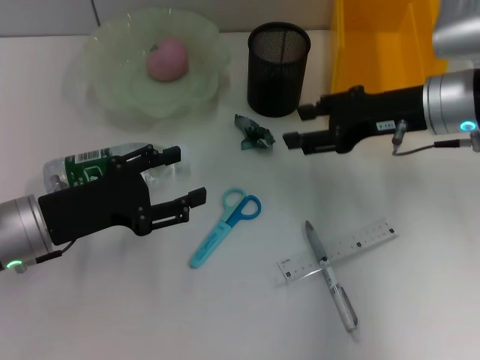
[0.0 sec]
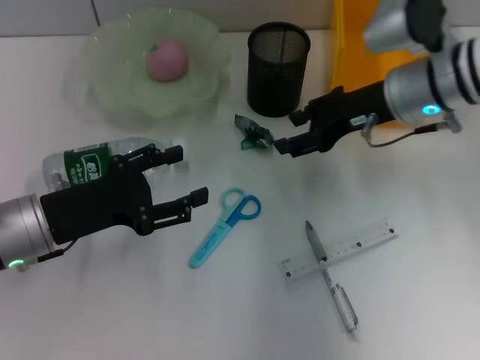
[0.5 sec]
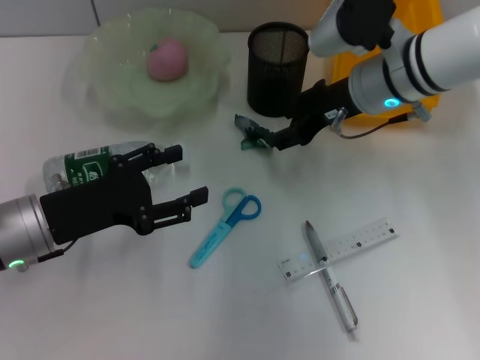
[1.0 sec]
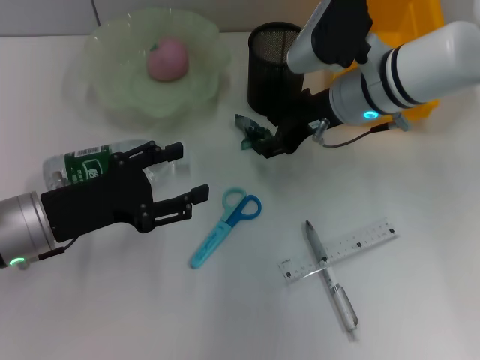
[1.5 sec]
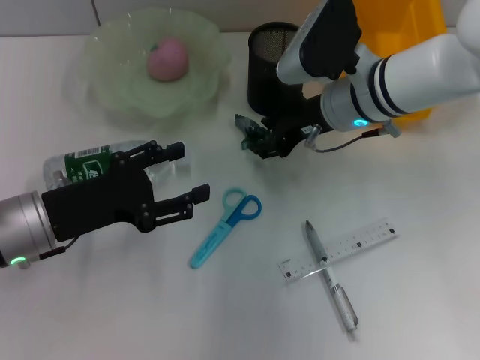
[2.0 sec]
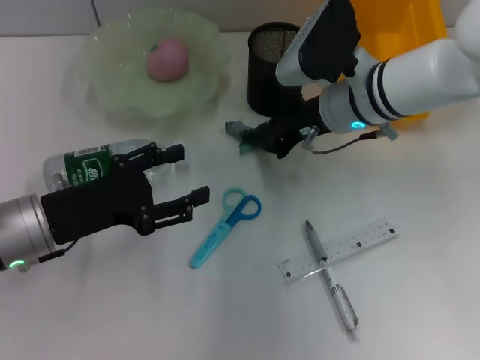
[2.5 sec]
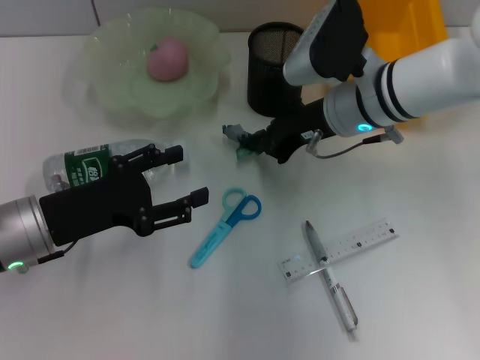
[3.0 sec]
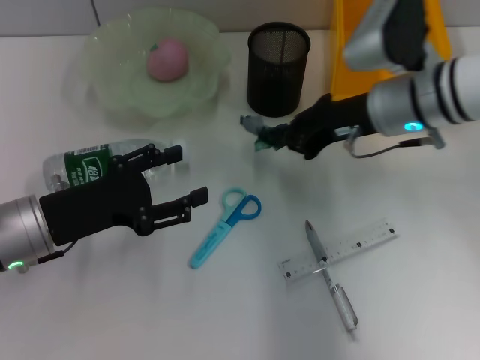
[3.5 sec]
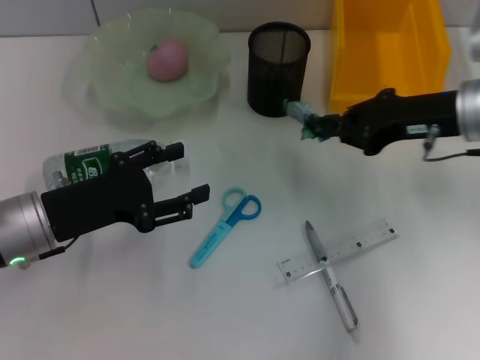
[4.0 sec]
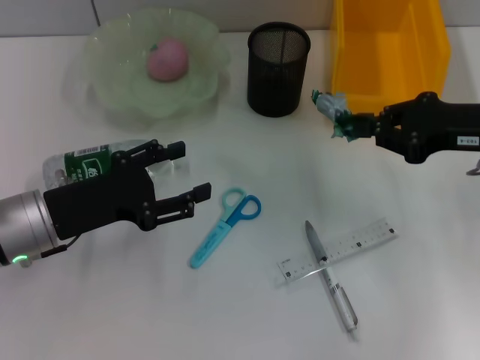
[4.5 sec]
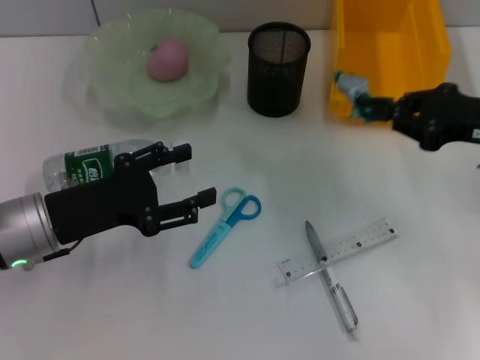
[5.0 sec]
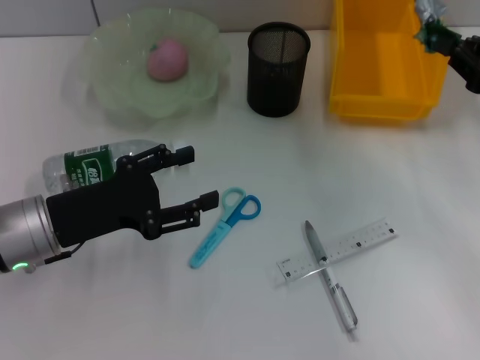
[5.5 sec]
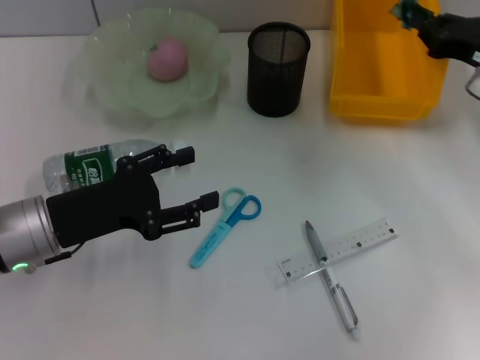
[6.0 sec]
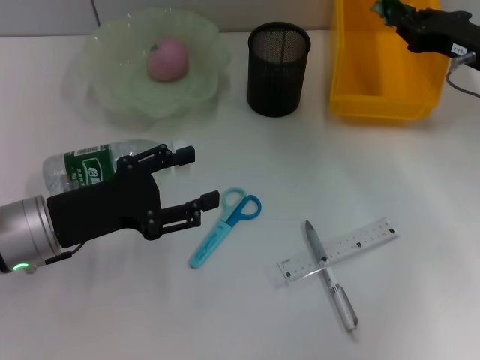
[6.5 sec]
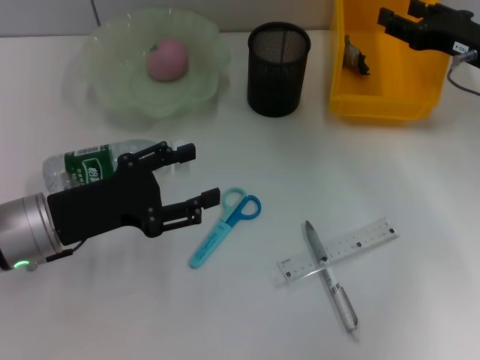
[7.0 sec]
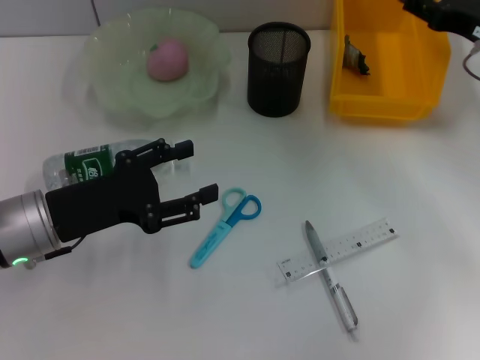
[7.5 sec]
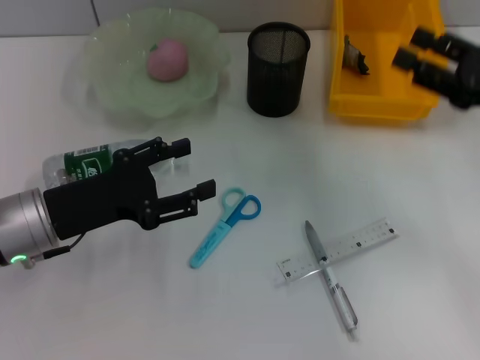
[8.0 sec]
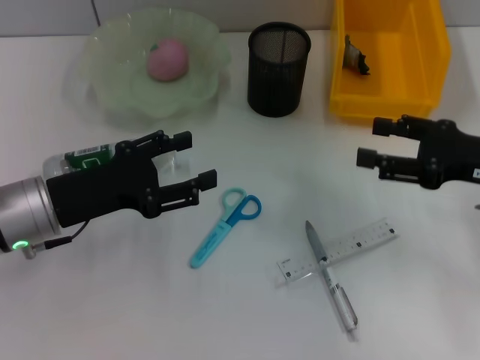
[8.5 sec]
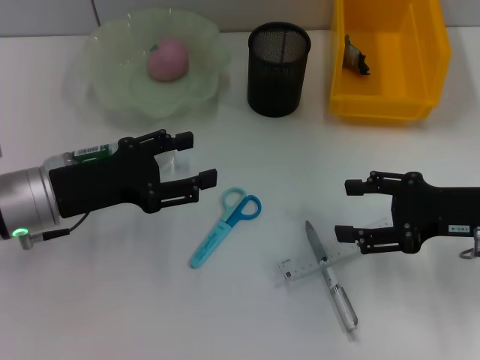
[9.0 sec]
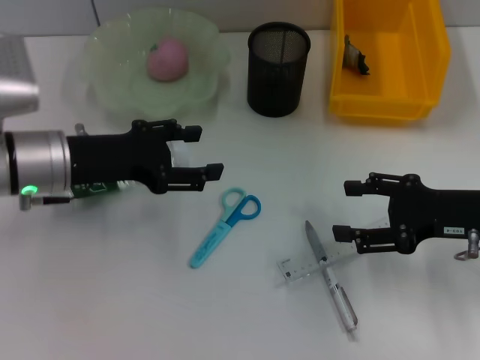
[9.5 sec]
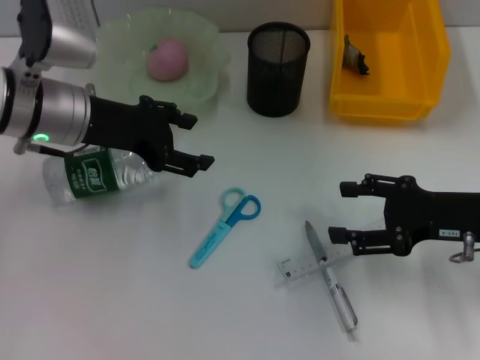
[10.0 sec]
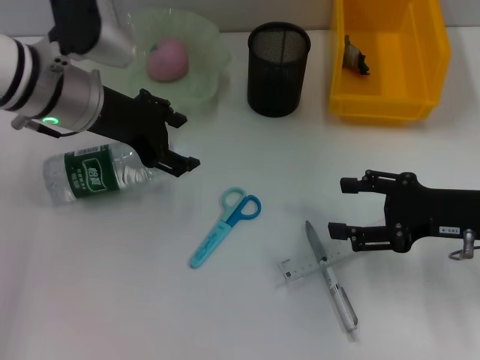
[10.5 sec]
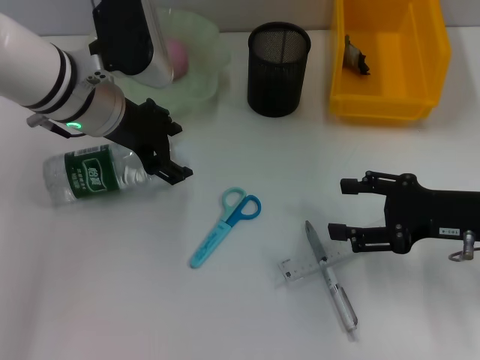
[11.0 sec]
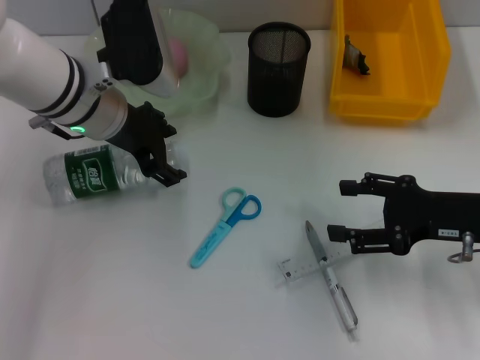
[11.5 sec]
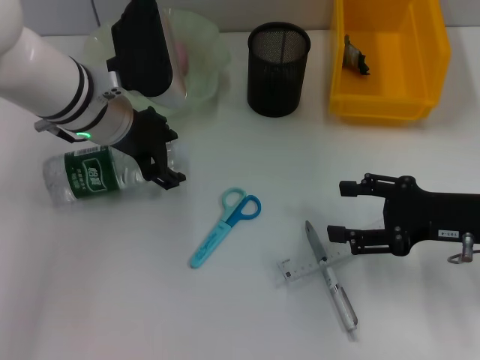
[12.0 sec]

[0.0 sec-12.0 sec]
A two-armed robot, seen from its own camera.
Step, 0.0 sec to 2.5 sec: Grab the plastic with the right hand.
Step, 3.0 sec to 6.5 sec: Place the plastic into the trash can with the right hand.
0.0 sec to 2.0 sec: The right gripper is displaced to the left by some 10 cm.
2.0 sec to 4.0 sec: The right gripper shifts some 15 cm to the right and backward, and closes.
4.0 sec to 6.0 sec: The right gripper is displaced to the right by roughly 5 cm.
6.0 sec to 8.0 sec: The right gripper travels backward by approximately 5 cm, and opens.
8.0 sec to 10.0 sec: The left gripper heads forward and upward, covering approximately 10 cm. Meanwhile the right gripper travels downward by approximately 5 cm.
10.0 sec to 12.0 sec: The left gripper travels to the right by about 5 cm.

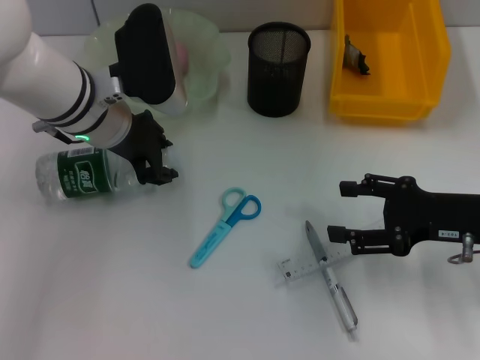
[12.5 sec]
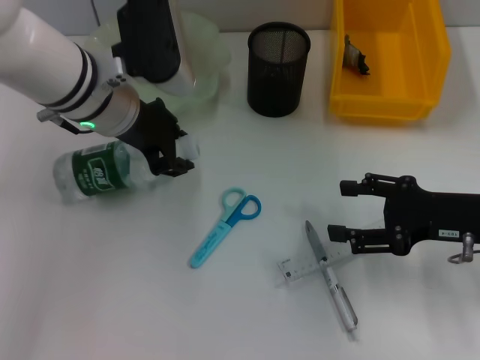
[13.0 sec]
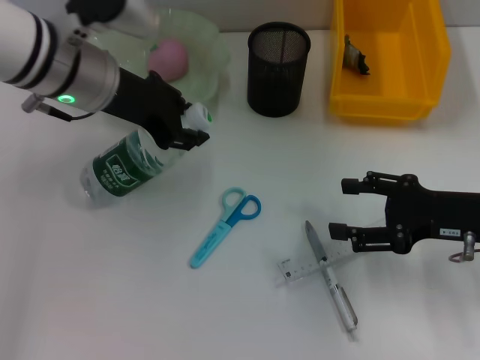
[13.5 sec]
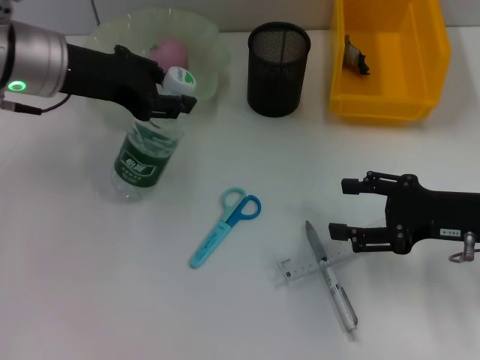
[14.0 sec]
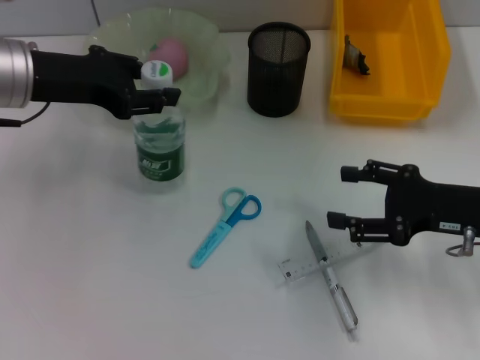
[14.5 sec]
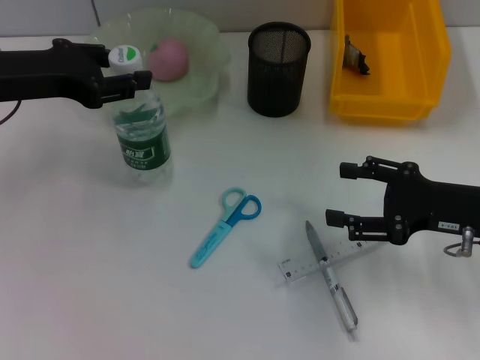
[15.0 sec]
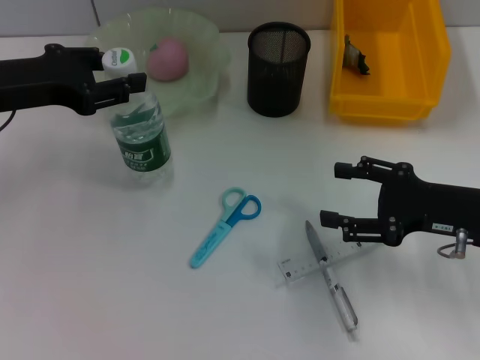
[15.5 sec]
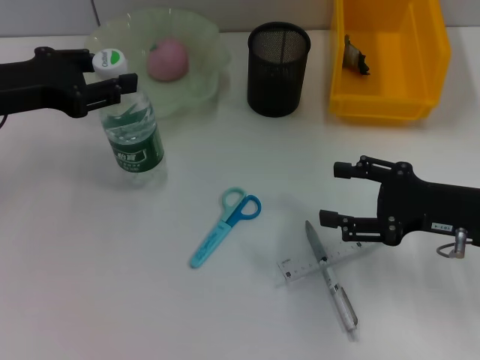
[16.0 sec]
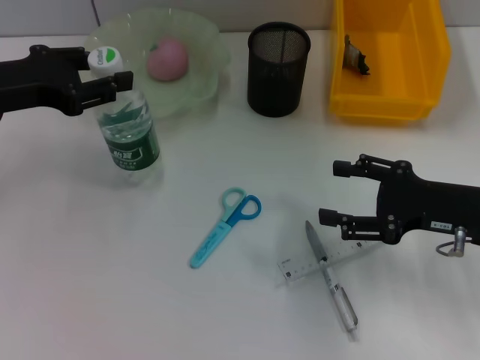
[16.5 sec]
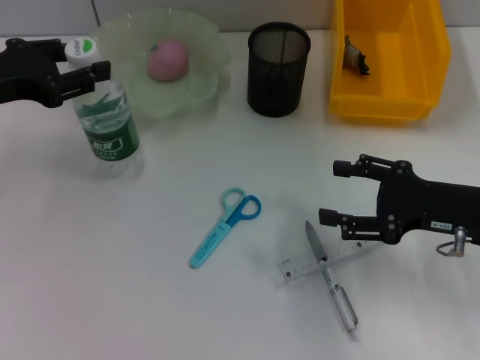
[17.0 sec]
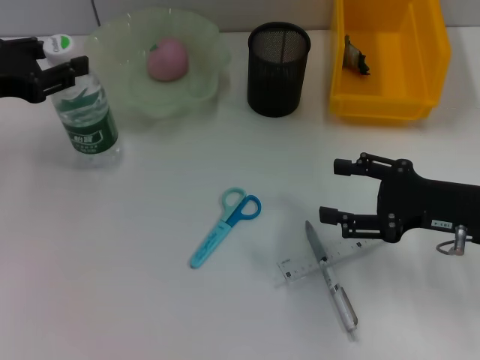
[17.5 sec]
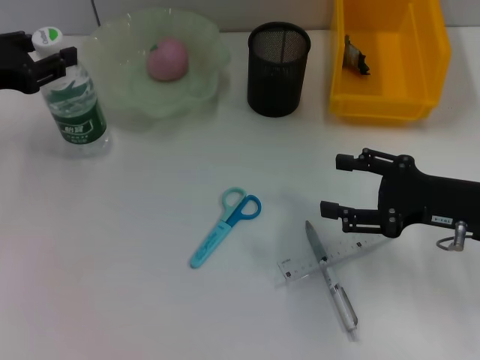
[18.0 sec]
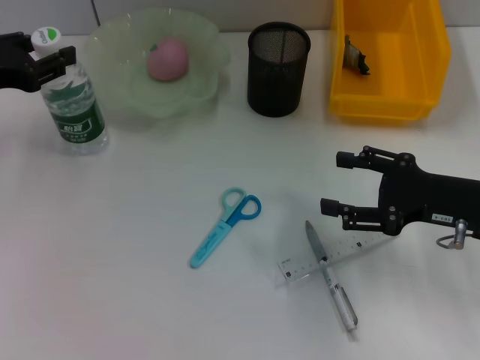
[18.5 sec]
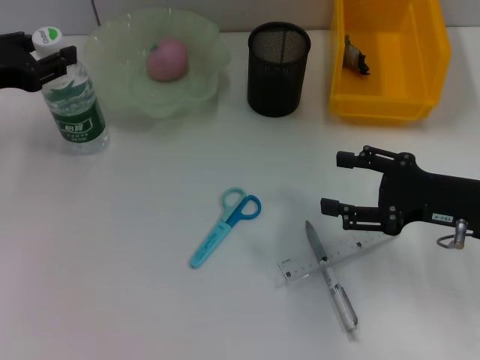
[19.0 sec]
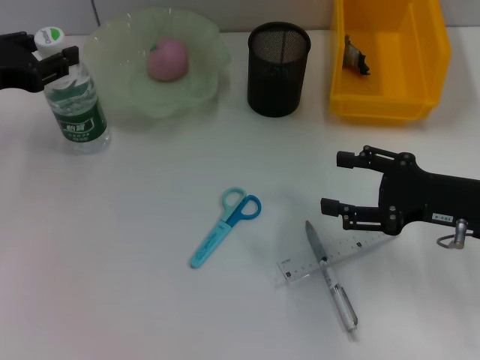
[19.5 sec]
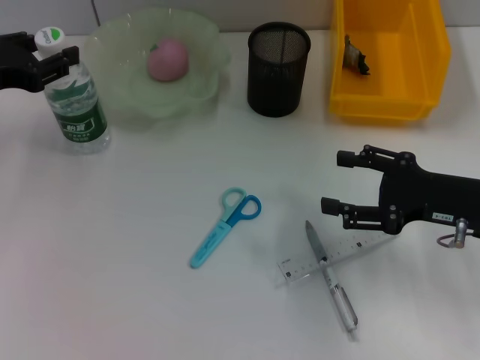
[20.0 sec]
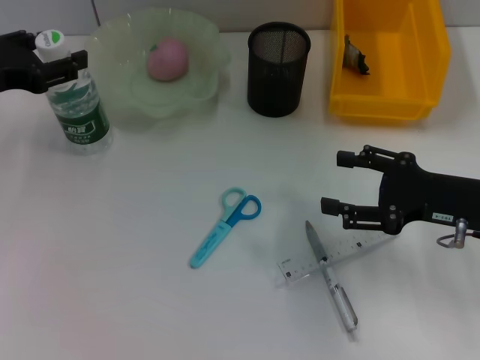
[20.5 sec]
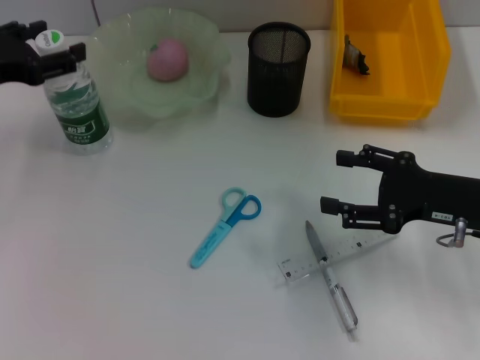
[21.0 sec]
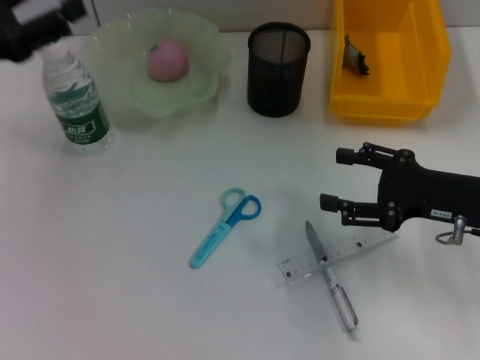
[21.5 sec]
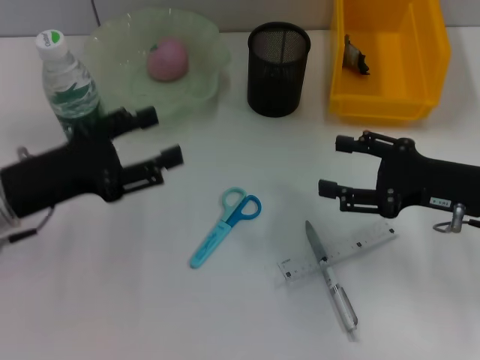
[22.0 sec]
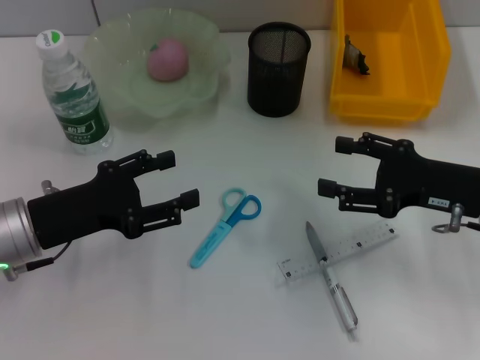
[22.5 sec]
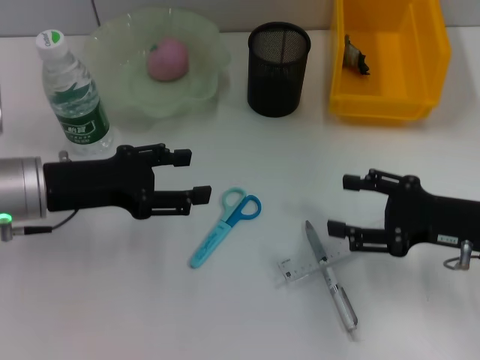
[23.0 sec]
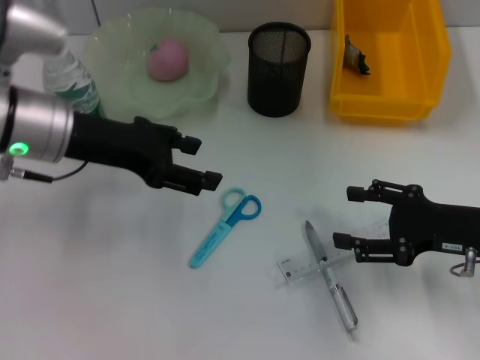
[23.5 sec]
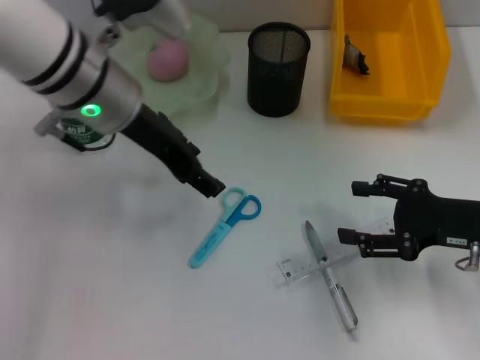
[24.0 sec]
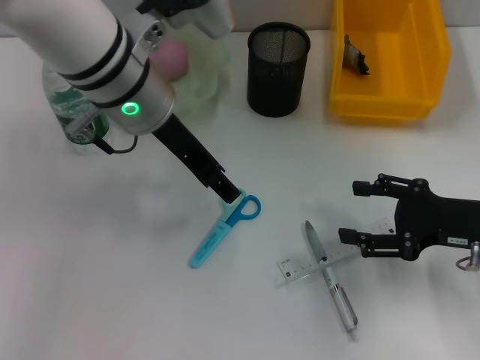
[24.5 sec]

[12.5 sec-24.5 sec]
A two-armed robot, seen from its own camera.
Step, 13.0 sec to 20.5 sec: Place the water bottle on the table with the left hand.
12.5 sec to 14.5 sec: The left gripper moves to the left and upward, roughly 10 cm.
14.5 sec to 16.5 sec: The left gripper shifts by approximately 5 cm.
16.5 sec to 18.5 sec: The grippers stay close to where they were, moving slightly.
18.5 sec to 20.5 sec: The two grippers keep their place.
20.5 sec to 22.5 sec: The left gripper heads backward, downward and to the right, covering approximately 15 cm, and opens.
22.5 sec to 24.5 sec: The left gripper travels to the right, upward and forward by approximately 20 cm.

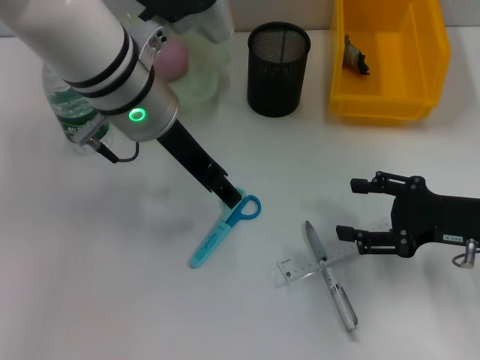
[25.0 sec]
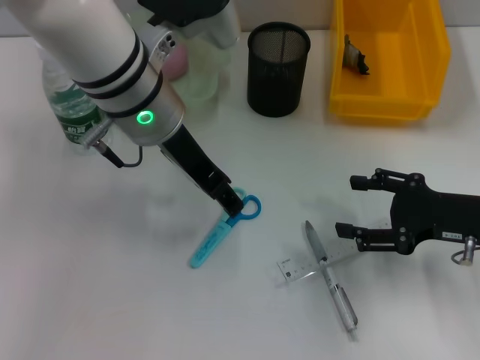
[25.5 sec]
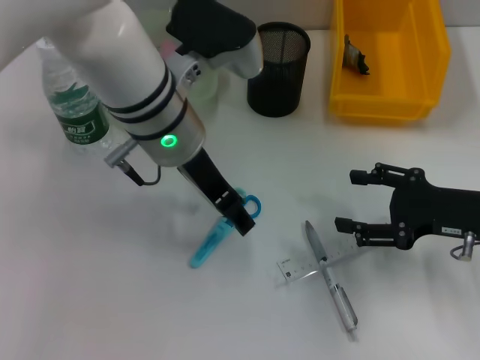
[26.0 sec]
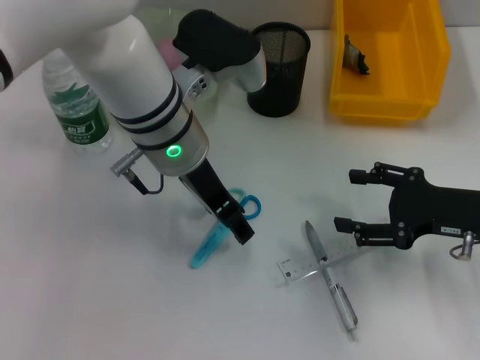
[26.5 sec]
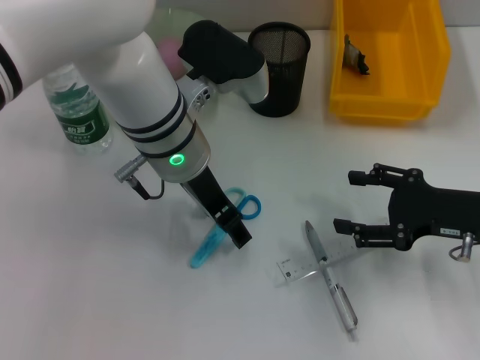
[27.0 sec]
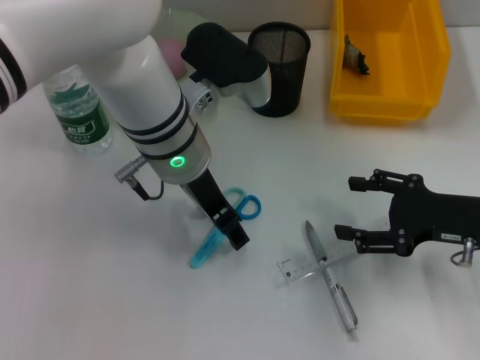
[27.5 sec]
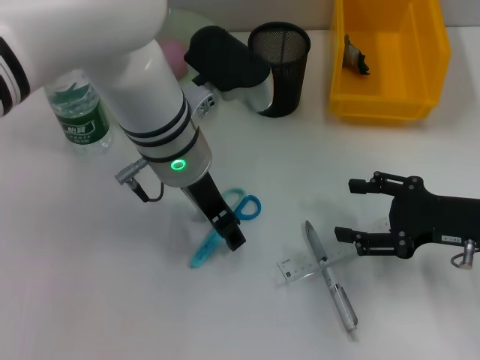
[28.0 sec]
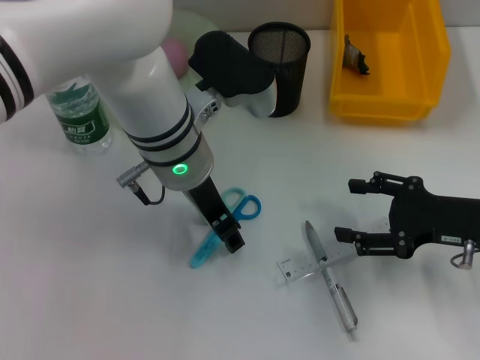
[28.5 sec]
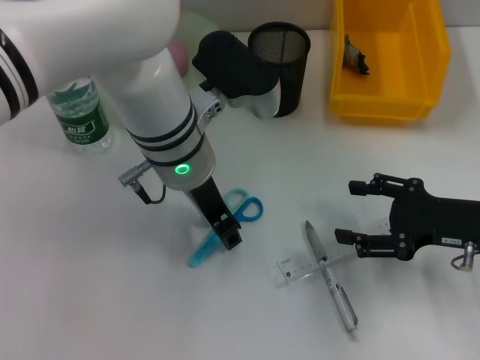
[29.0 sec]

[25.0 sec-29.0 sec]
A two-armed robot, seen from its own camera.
25.0 sec to 27.0 sec: The left gripper ends up approximately 5 cm from where it was.
27.0 sec to 29.0 sec: The grippers make only small movements.
